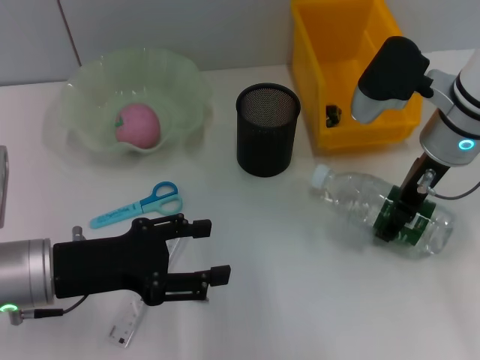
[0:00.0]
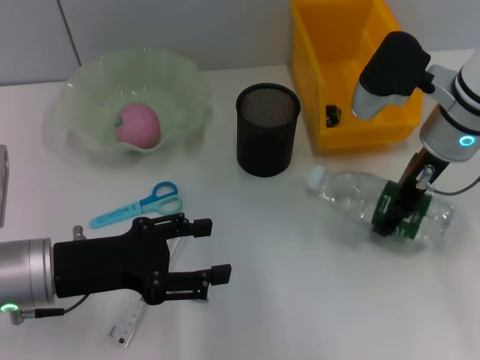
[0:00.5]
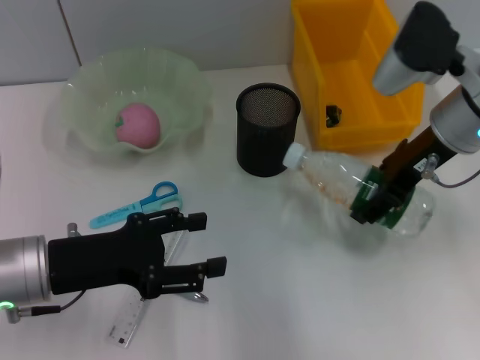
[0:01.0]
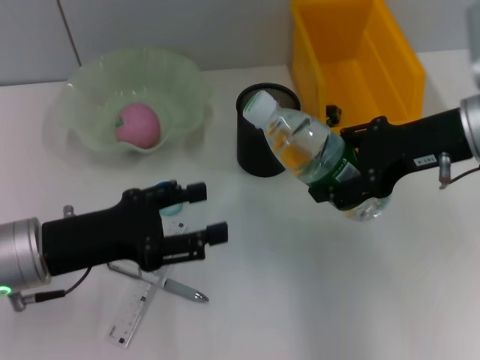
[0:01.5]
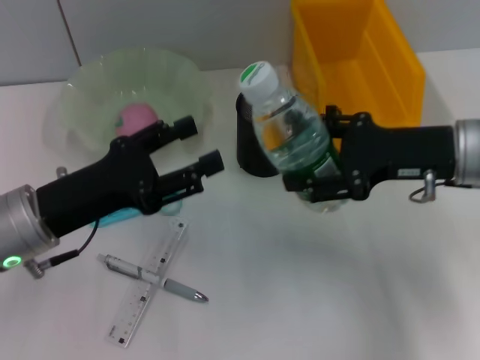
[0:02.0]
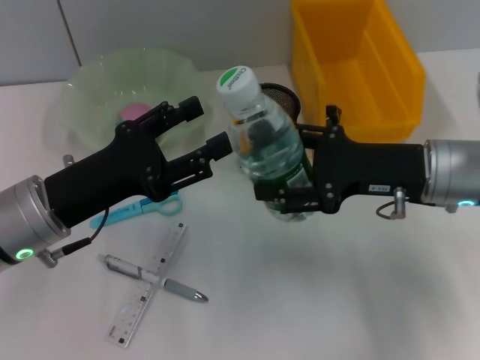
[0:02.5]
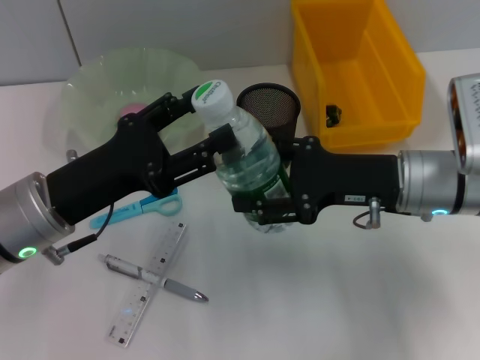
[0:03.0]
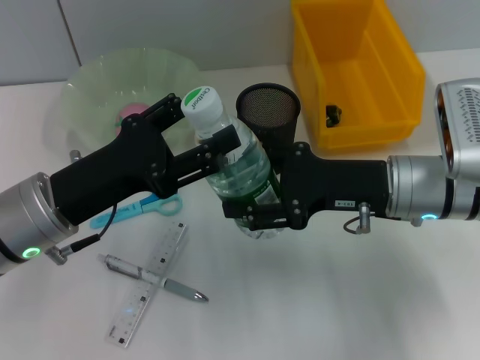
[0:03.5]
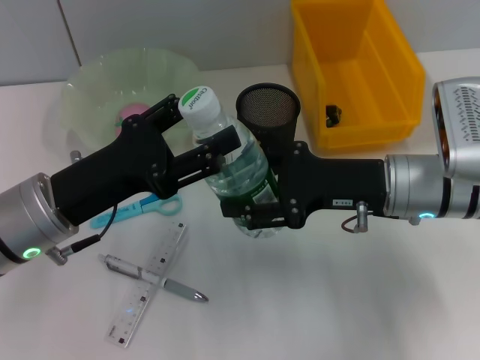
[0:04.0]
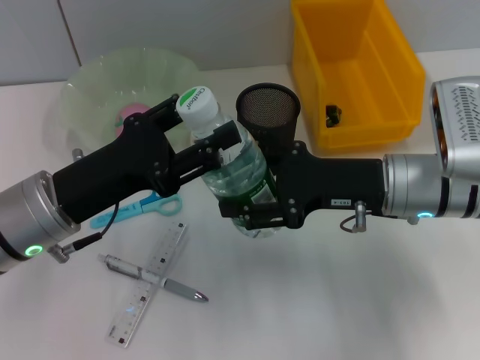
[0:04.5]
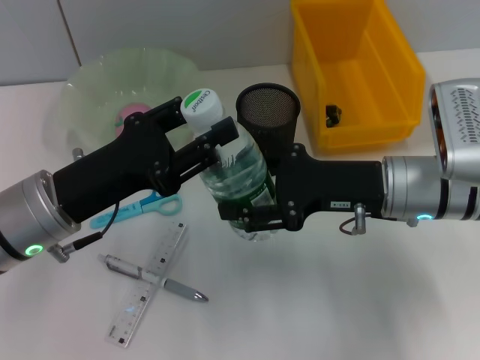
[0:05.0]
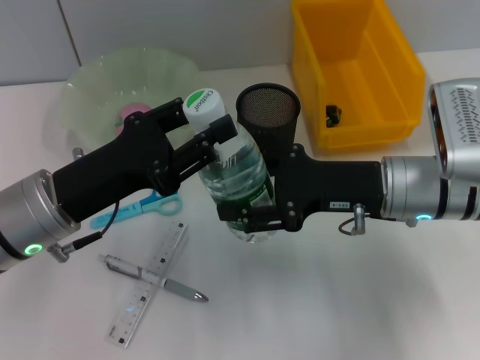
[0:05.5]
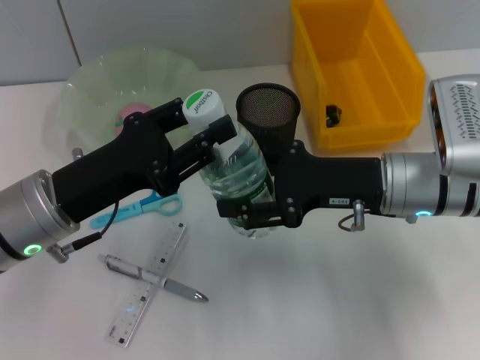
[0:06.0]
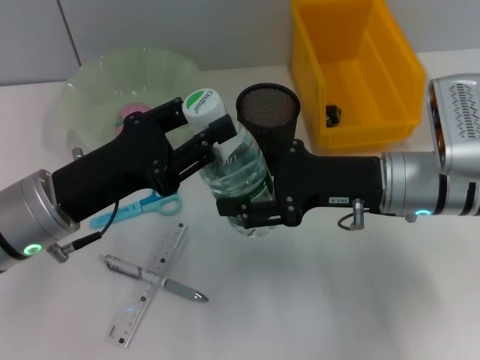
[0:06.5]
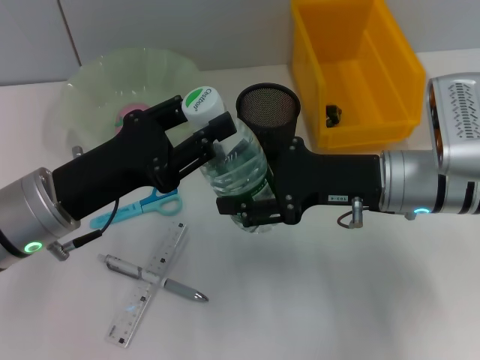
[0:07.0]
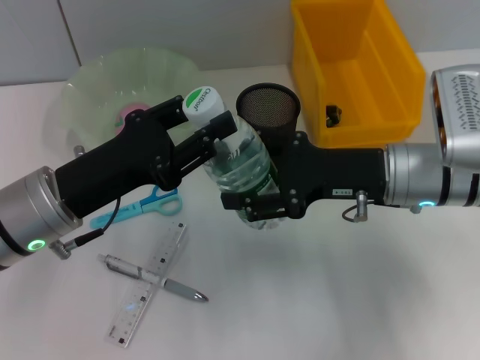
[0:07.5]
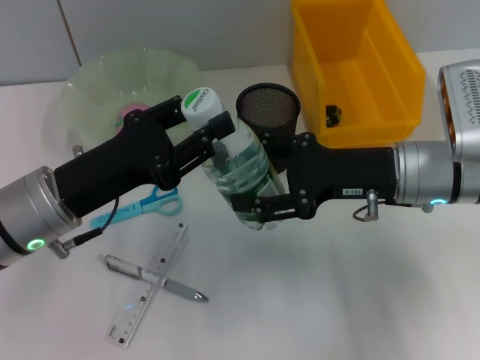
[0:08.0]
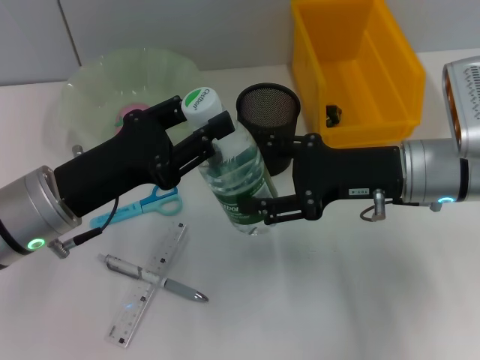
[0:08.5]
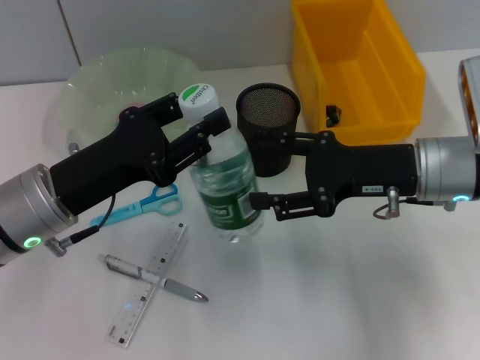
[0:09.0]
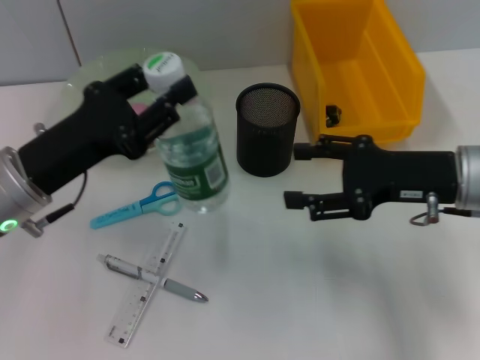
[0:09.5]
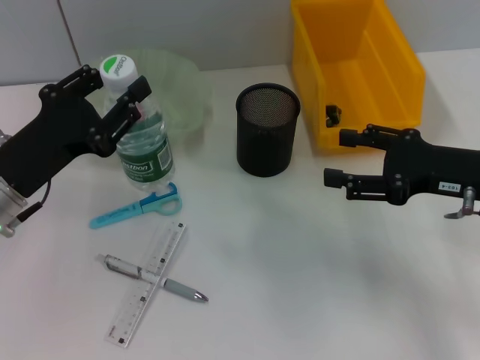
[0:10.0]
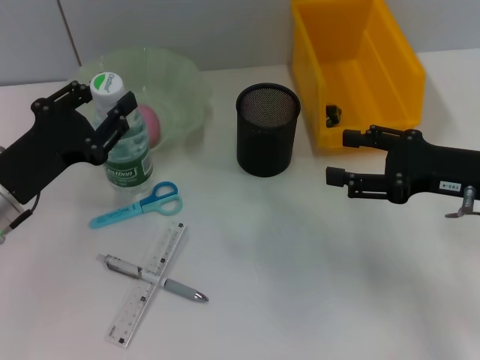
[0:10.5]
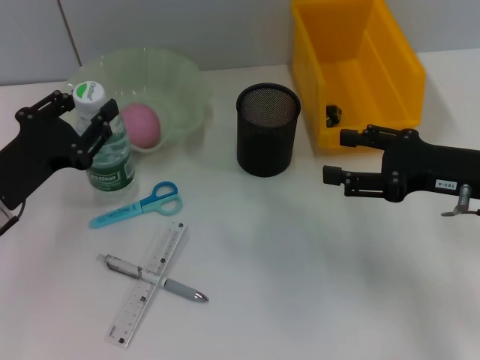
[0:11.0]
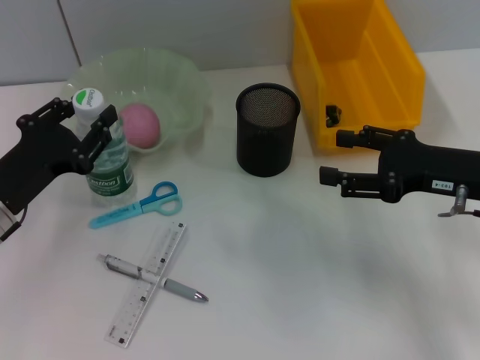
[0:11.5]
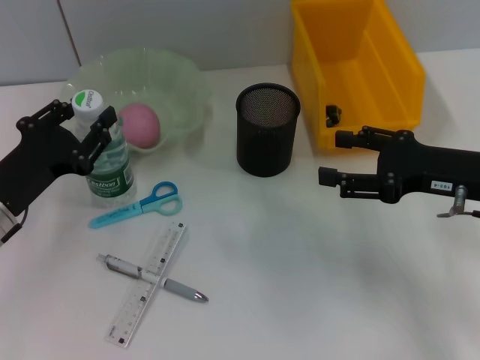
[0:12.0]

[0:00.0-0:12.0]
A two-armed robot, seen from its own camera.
Step, 0:01.0 to 0:08.0: Pass the water bottle from the right hand to the left hand.
0:00.0 to 0:02.0: The right gripper heads backward, covering roughly 5 cm.
0:02.0 to 0:04.0: The right gripper travels to the left by some 5 cm.
0:04.0 to 0:06.0: The left gripper closes its fingers.
0:06.0 to 0:08.0: The grippers stay close to where they were, moving slightly.
0:08.0 to 0:10.0: The right gripper is displaced to the right by about 10 cm.
0:10.0 to 0:12.0: There are only small adjustments of the grippers.

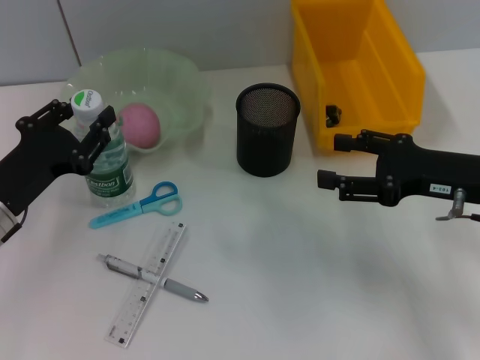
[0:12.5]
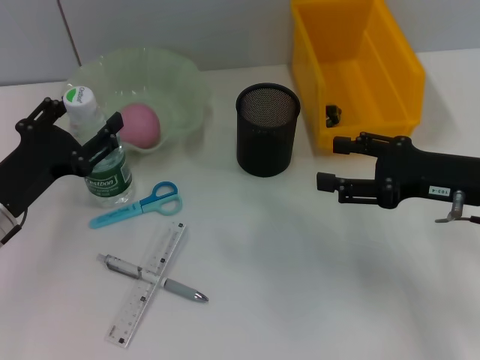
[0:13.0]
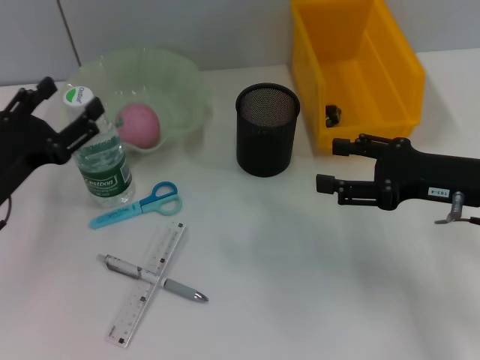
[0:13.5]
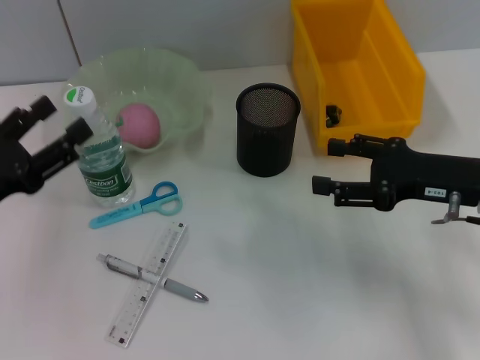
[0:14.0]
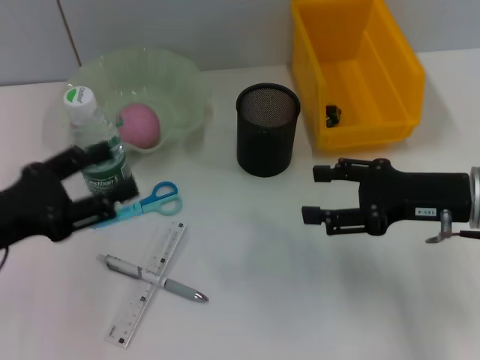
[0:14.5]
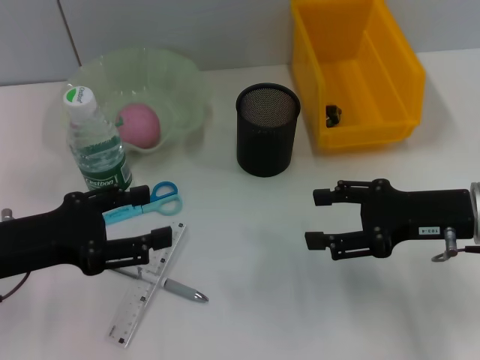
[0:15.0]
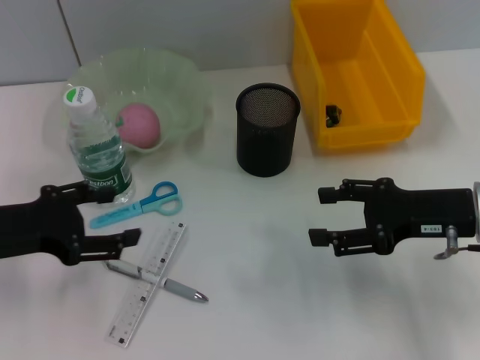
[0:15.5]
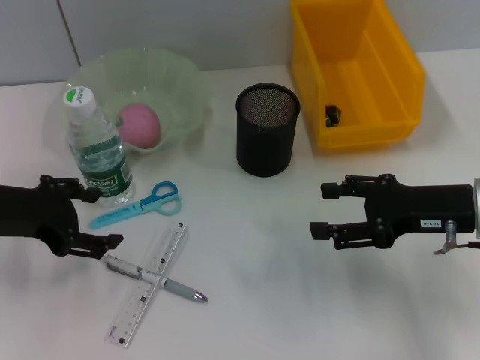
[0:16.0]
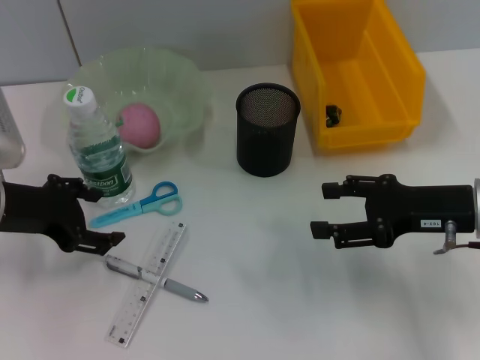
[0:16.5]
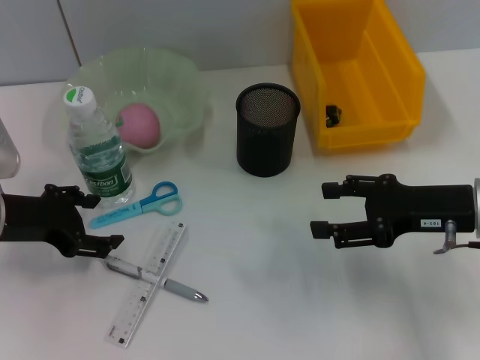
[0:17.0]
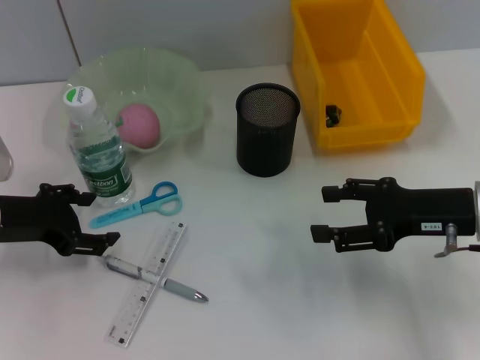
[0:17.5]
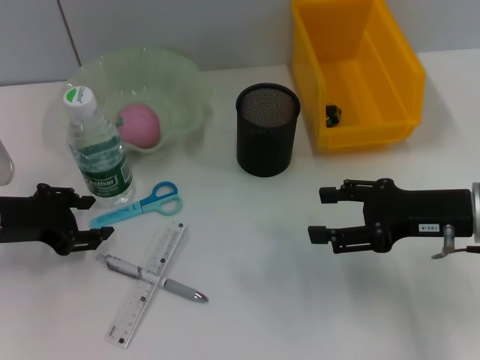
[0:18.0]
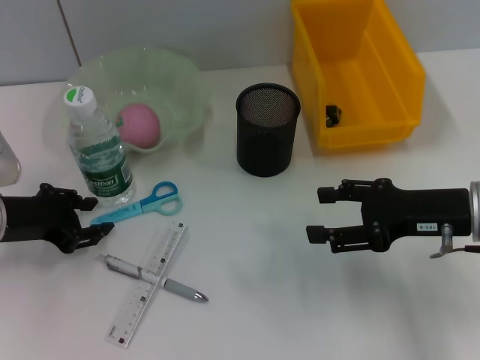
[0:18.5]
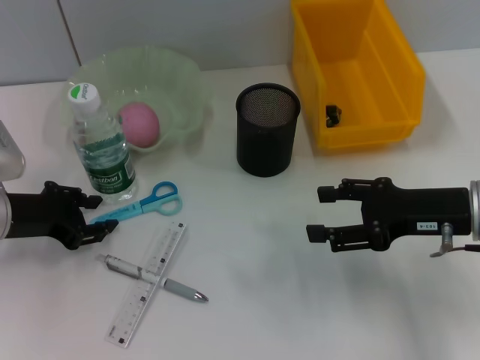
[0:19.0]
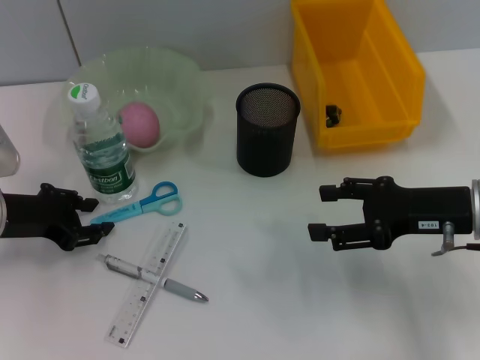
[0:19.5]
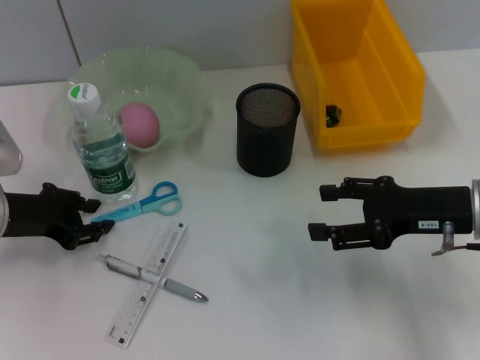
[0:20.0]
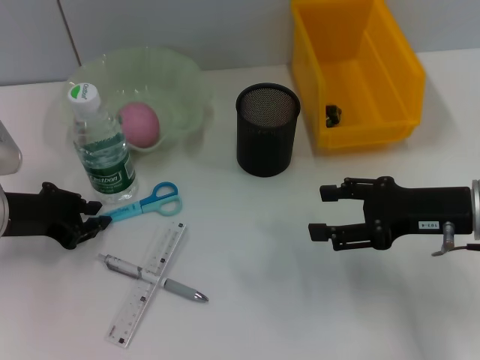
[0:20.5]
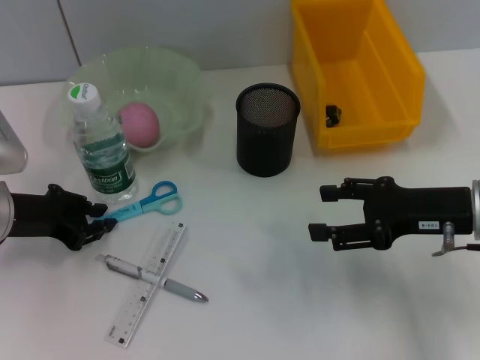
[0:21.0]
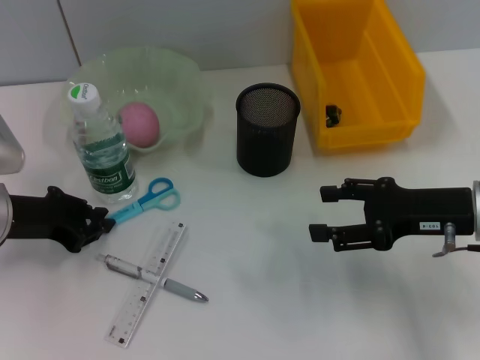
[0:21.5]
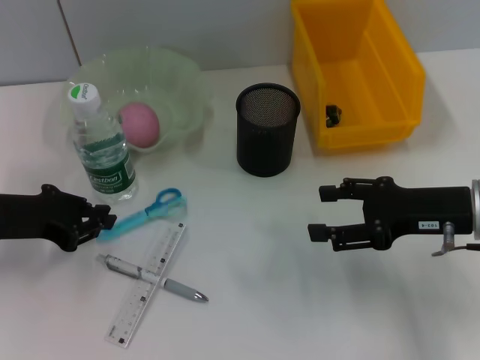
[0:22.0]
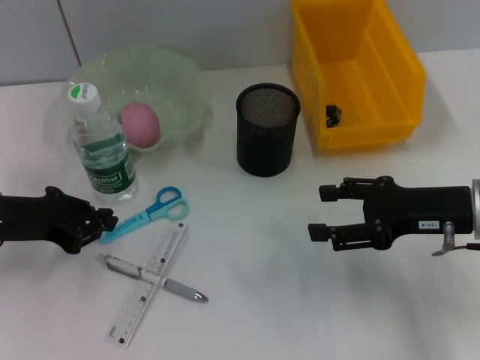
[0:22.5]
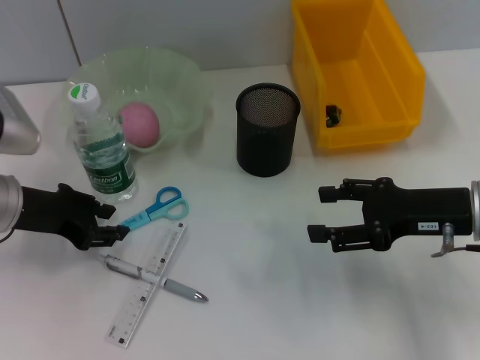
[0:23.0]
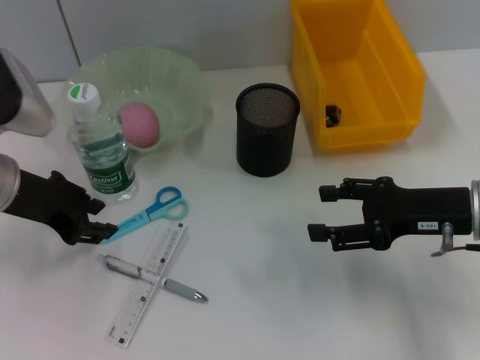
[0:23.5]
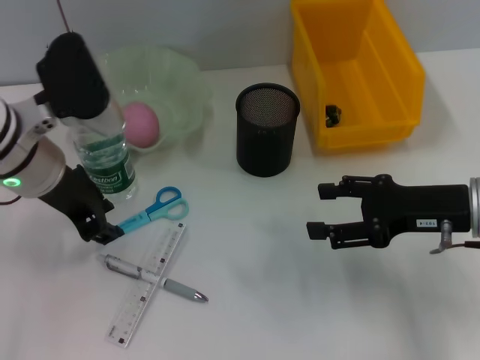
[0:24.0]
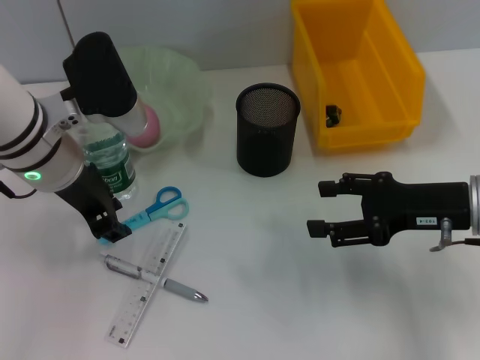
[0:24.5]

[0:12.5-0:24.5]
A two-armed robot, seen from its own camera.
0:12.5 to 0:14.5: The left gripper shifts by some 5 cm, and opens its fingers.
0:14.5 to 0:16.5: The left gripper is displaced forward by approximately 5 cm.
0:16.5 to 0:18.5: The left gripper closes its fingers.
0:18.5 to 0:20.5: Both grippers stay put.
0:20.5 to 0:22.5: The grippers move only a little.
0:22.5 to 0:24.5: The left gripper goes approximately 15 cm to the right and upward, and opens its fingers.

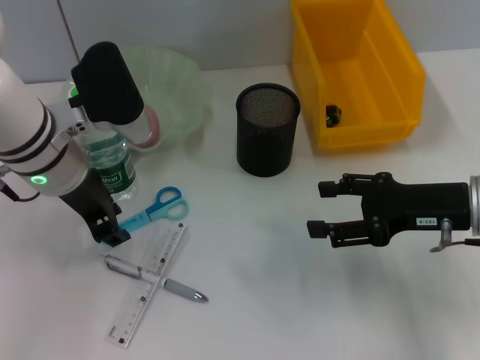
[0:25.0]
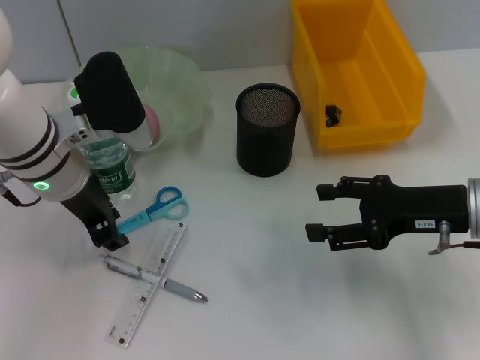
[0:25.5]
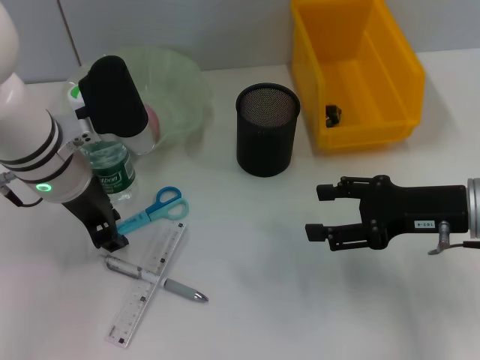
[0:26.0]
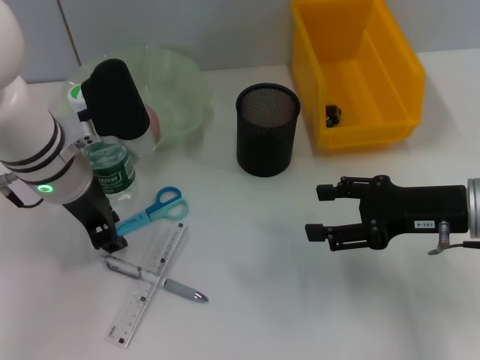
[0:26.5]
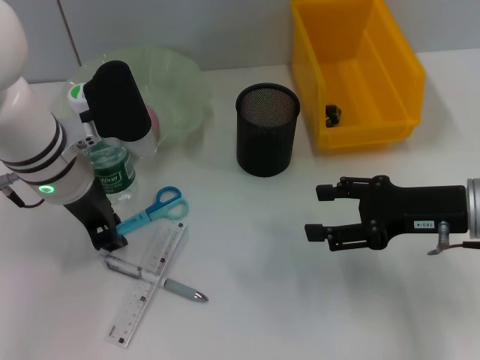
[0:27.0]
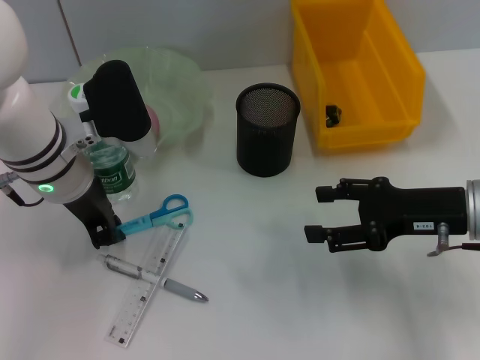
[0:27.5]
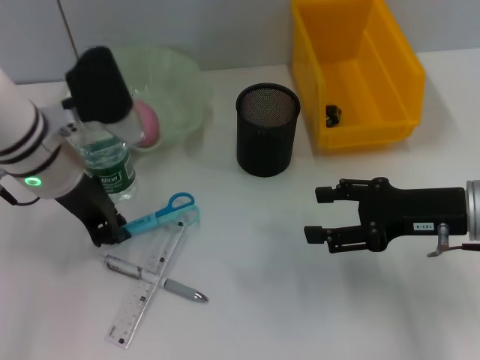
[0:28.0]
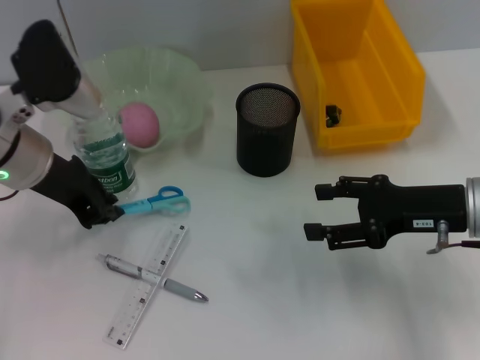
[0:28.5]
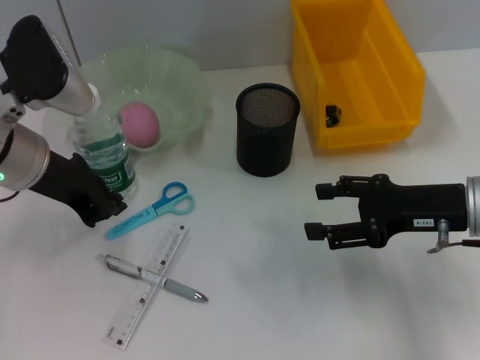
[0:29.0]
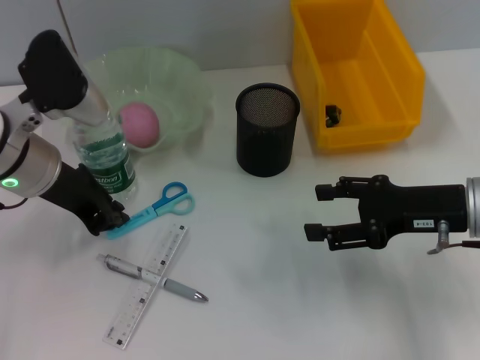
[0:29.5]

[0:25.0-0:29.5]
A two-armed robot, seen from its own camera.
0:25.0 to 0:27.0: The grippers make only small movements.
0:27.0 to 0:29.5: The left gripper closes up.
